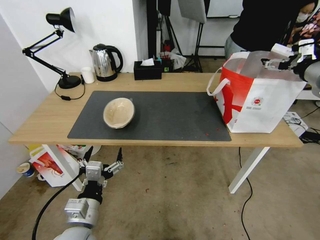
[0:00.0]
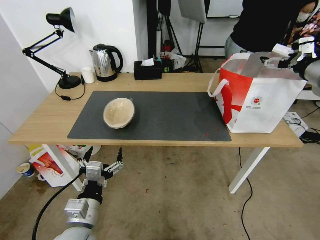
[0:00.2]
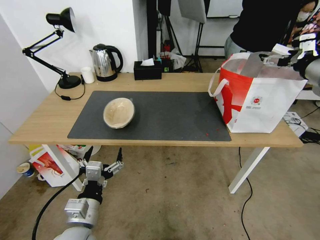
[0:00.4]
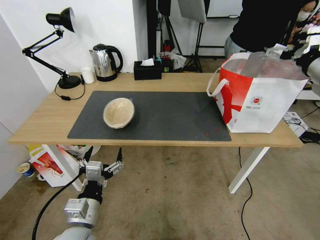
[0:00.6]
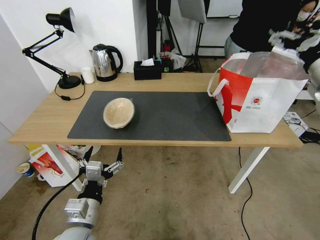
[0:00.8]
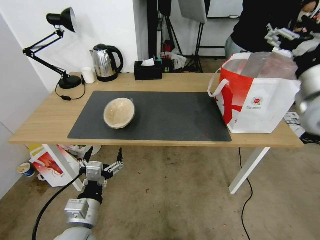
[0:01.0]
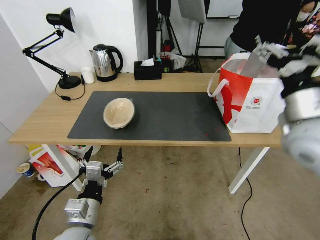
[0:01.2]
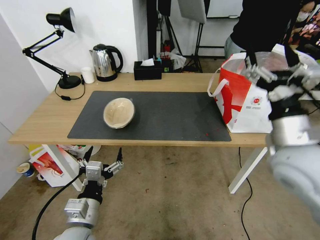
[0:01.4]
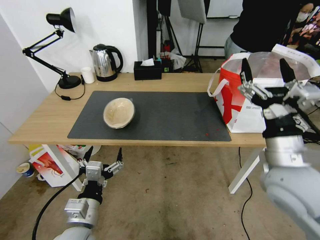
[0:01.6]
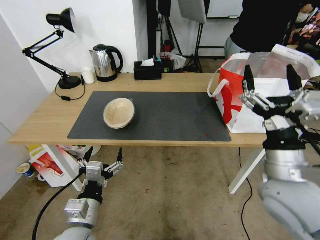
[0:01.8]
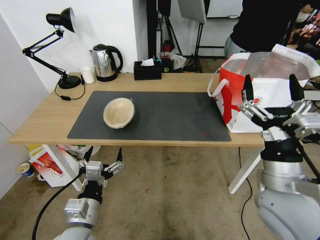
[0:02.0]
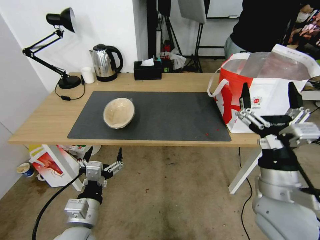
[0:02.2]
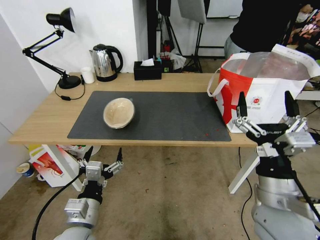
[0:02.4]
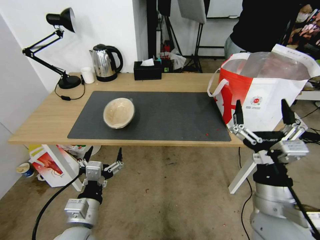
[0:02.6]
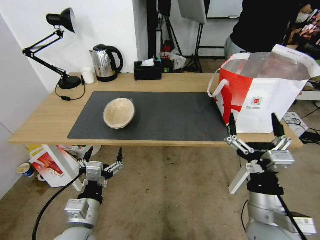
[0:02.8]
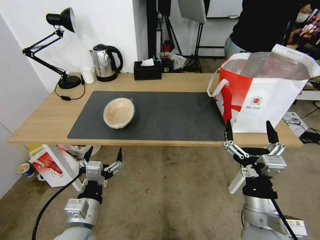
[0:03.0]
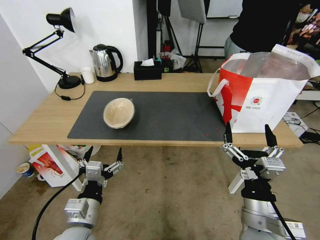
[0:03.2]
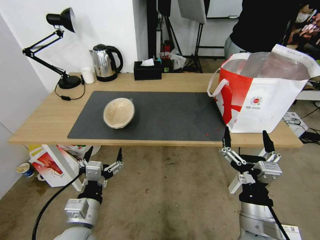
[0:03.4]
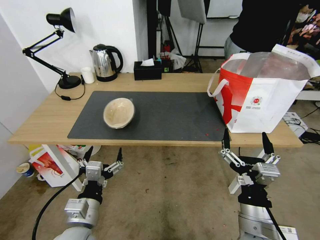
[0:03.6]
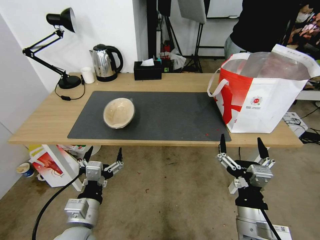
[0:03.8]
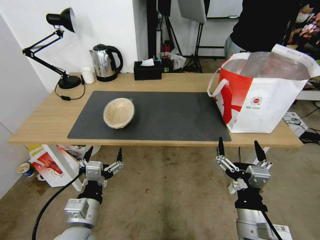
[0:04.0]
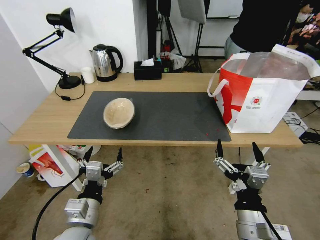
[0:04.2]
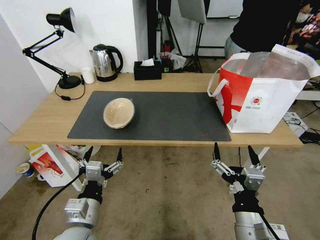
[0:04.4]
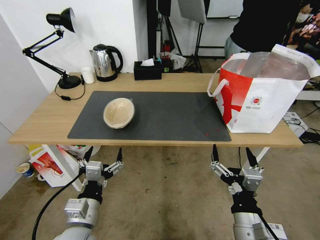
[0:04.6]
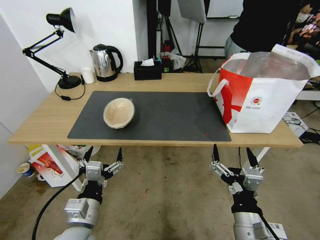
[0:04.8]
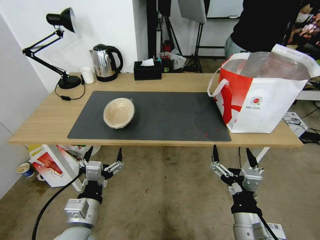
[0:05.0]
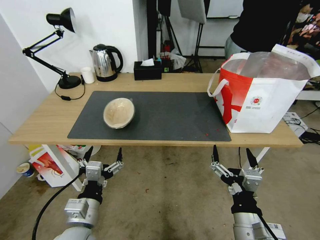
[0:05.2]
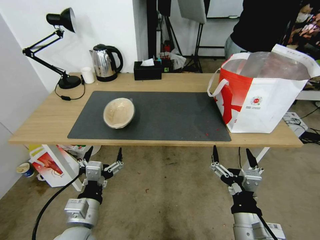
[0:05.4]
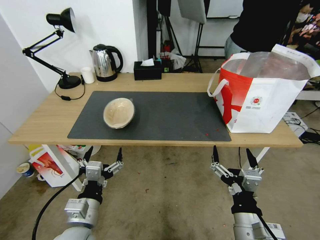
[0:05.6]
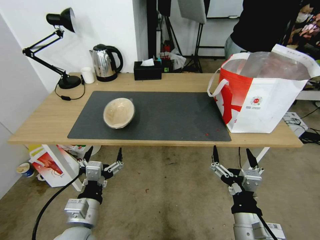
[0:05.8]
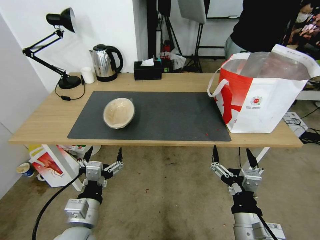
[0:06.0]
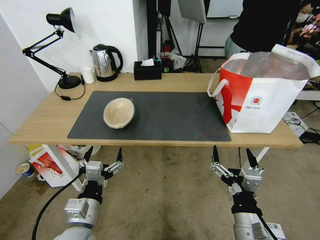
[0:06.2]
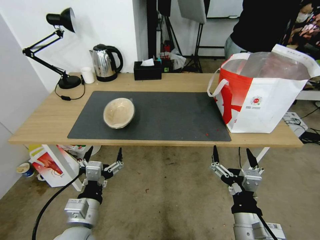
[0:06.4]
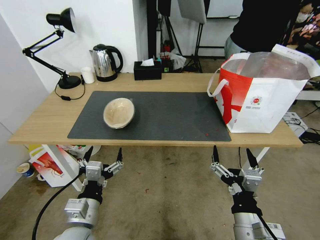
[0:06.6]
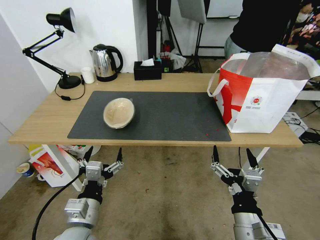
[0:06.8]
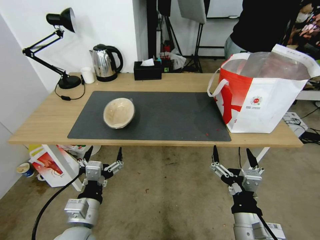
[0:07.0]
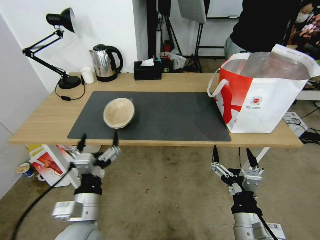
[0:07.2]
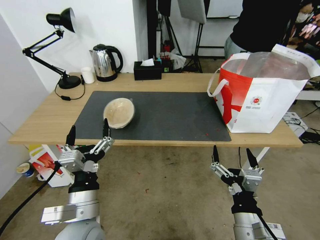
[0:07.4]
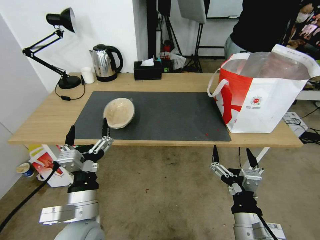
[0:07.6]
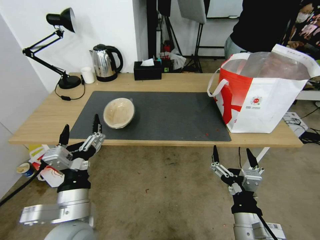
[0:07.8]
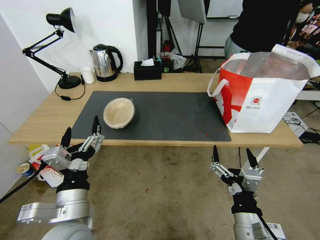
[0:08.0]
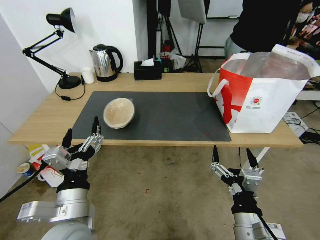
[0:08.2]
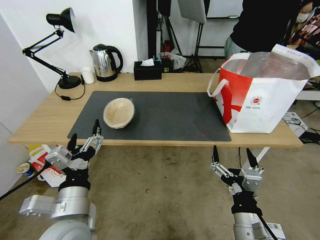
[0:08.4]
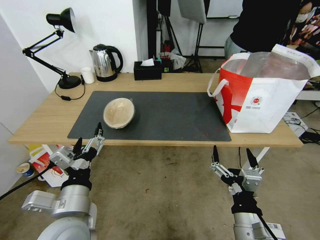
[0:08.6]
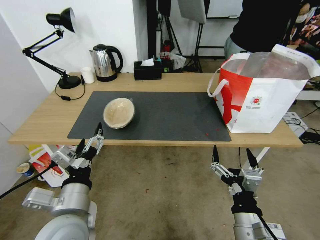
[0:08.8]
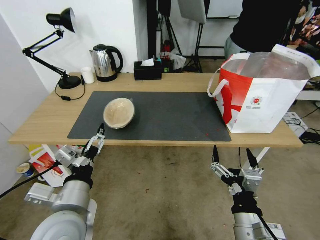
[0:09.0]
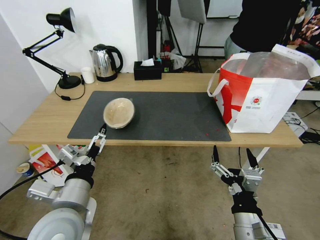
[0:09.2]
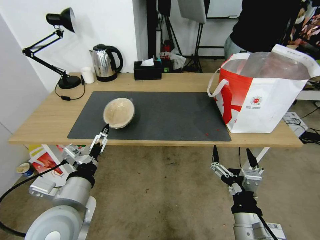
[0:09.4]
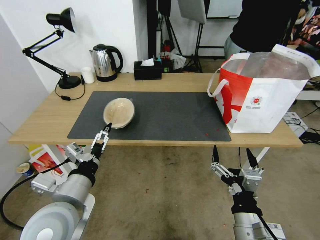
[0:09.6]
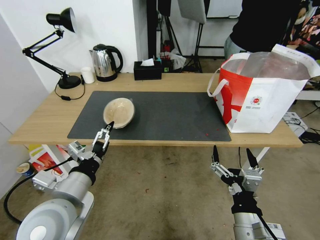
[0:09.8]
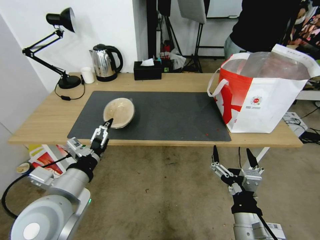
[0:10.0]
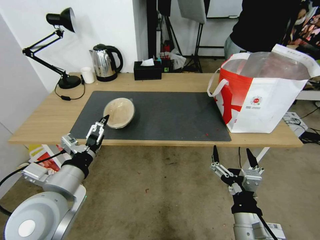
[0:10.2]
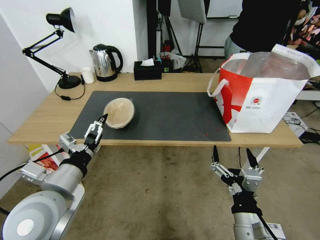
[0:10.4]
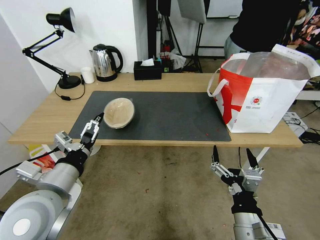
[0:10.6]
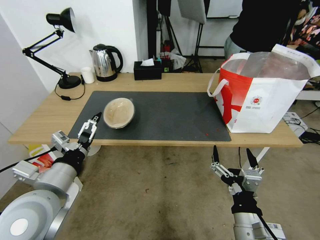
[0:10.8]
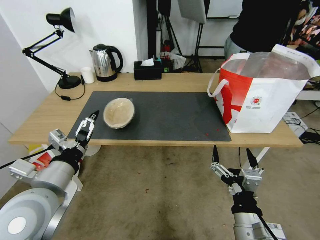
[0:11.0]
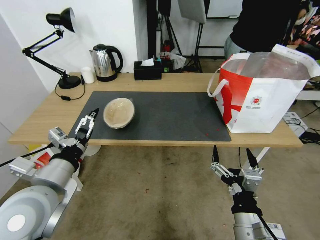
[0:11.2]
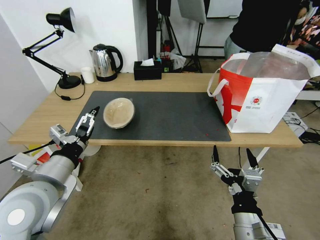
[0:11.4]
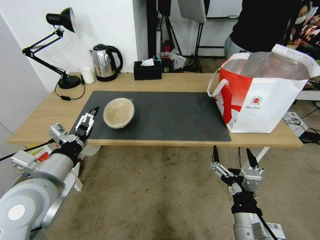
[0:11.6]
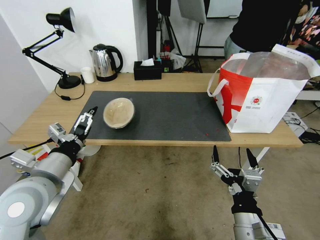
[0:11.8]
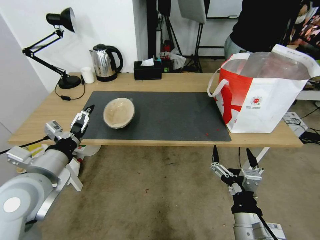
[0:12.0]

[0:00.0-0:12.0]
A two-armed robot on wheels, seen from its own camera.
Task of the whole recording: Pick up the trash from the table and place it into the takeout bag.
0:00.0 to 0:01.6: The right gripper shifts approximately 30 cm backward, to the left and downward.
0:01.6 to 0:03.0: The right gripper heads downward and backward, covering roughly 15 cm.
0:03.0 to 0:04.4: The grippers stay close to where they were, moving slightly.
0:04.4 to 0:06.0: Neither gripper changes place.
0:06.0 to 0:07.6: The left gripper changes place by some 5 cm.
0:09.0 to 0:10.4: The left gripper changes place by some 5 cm.
0:10.4 to 0:12.0: The left gripper moves approximately 5 cm.

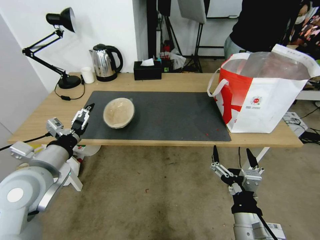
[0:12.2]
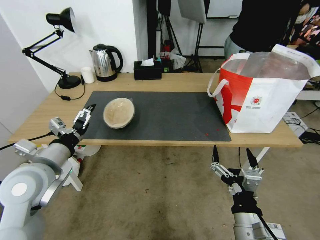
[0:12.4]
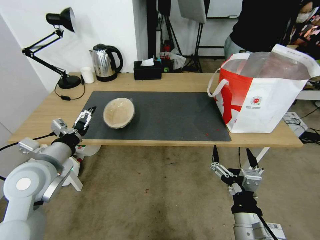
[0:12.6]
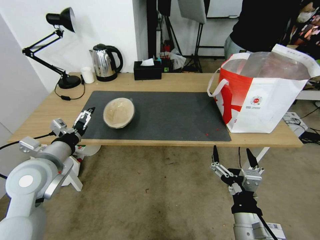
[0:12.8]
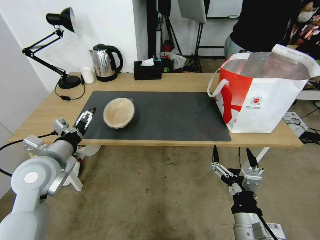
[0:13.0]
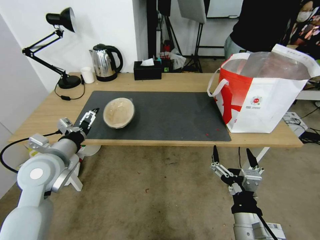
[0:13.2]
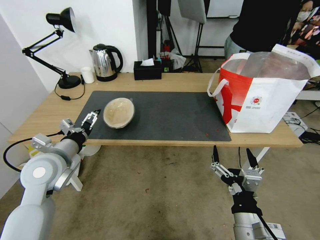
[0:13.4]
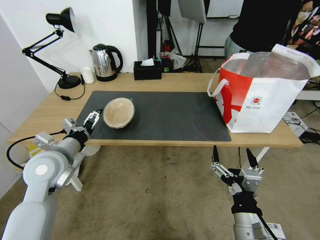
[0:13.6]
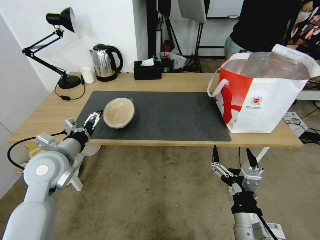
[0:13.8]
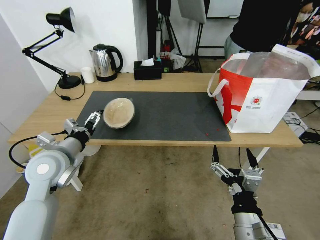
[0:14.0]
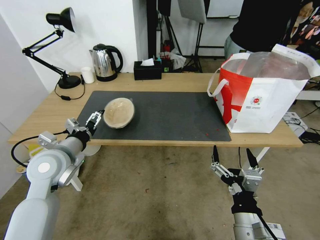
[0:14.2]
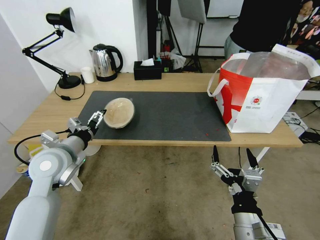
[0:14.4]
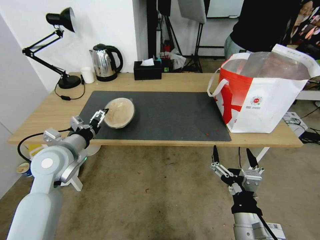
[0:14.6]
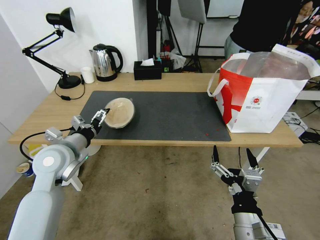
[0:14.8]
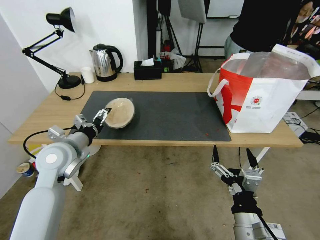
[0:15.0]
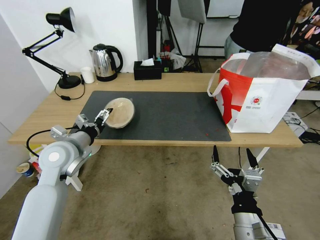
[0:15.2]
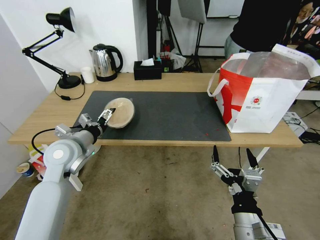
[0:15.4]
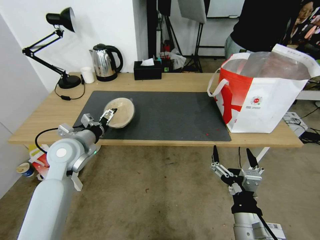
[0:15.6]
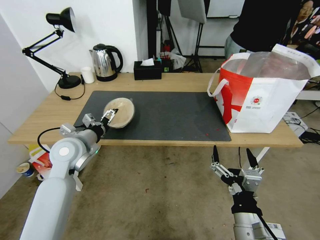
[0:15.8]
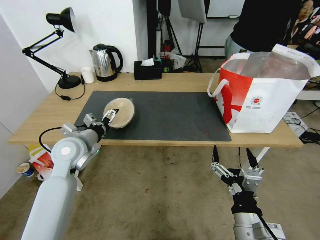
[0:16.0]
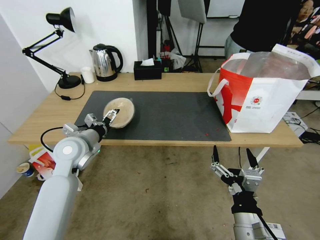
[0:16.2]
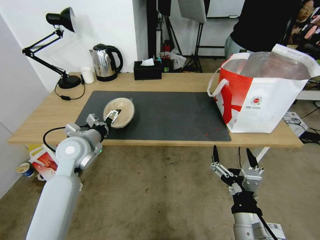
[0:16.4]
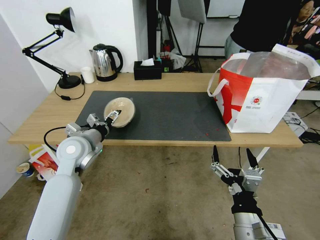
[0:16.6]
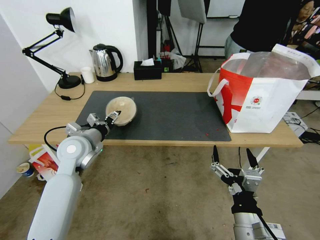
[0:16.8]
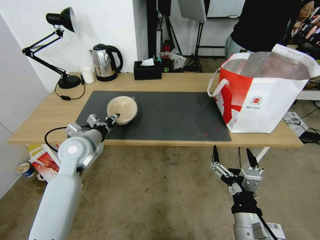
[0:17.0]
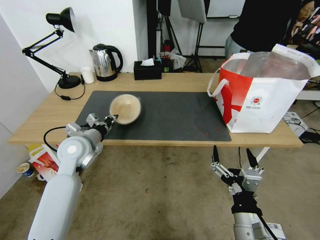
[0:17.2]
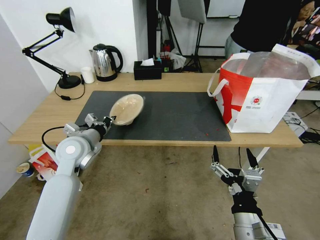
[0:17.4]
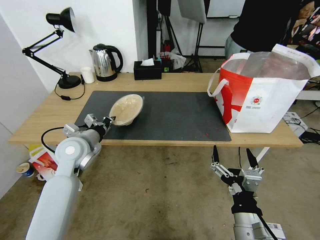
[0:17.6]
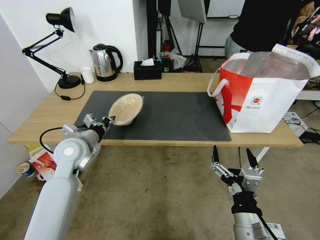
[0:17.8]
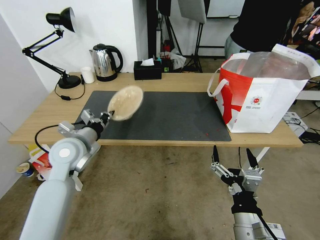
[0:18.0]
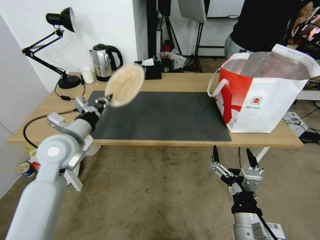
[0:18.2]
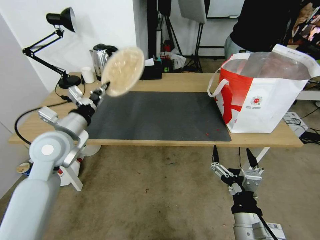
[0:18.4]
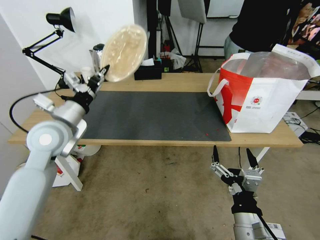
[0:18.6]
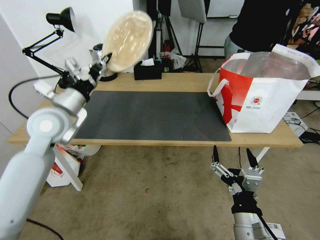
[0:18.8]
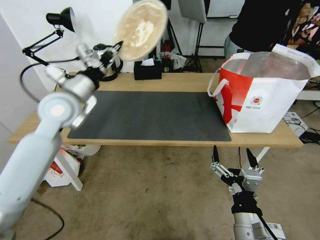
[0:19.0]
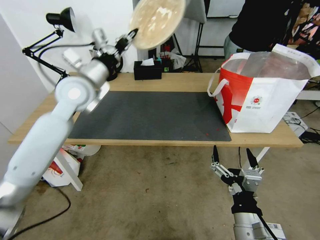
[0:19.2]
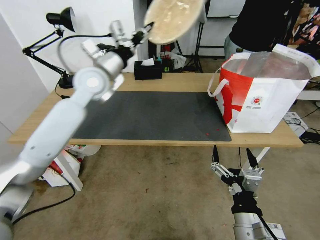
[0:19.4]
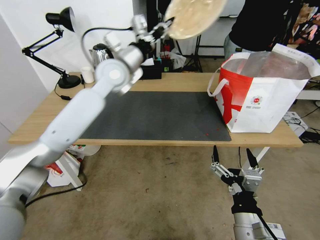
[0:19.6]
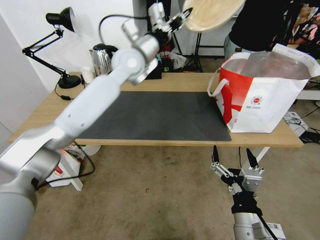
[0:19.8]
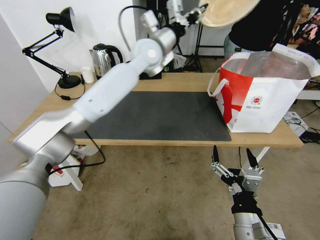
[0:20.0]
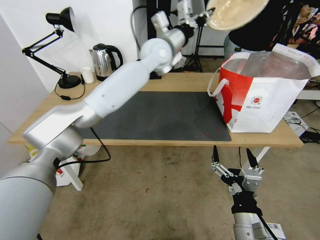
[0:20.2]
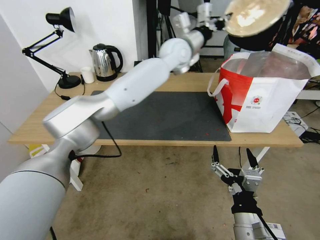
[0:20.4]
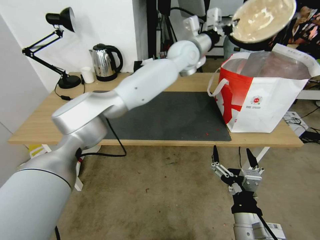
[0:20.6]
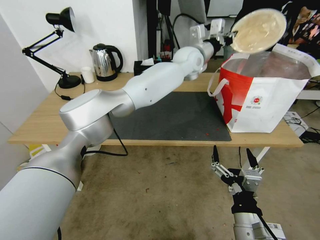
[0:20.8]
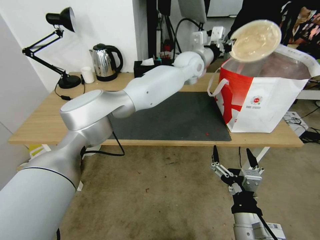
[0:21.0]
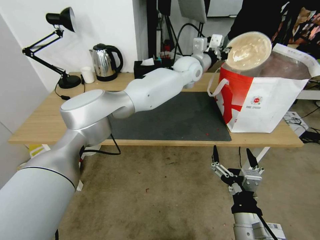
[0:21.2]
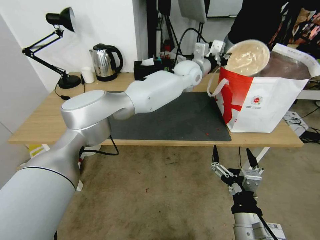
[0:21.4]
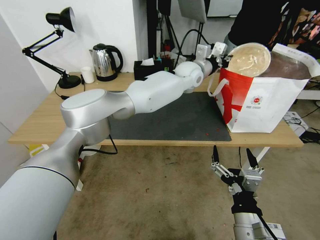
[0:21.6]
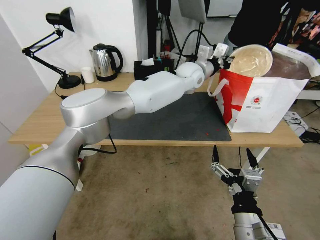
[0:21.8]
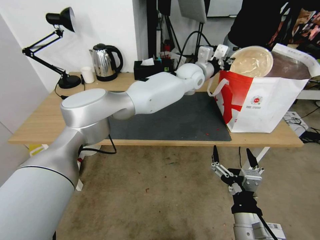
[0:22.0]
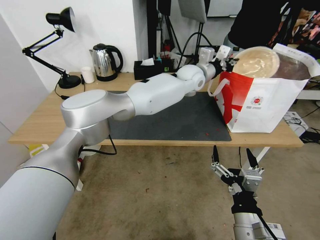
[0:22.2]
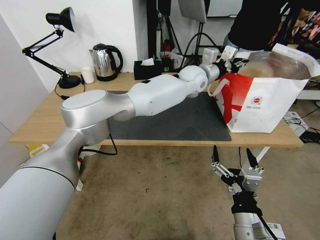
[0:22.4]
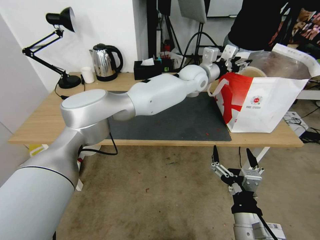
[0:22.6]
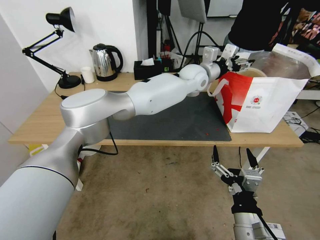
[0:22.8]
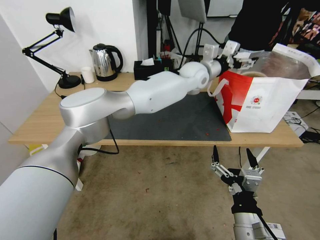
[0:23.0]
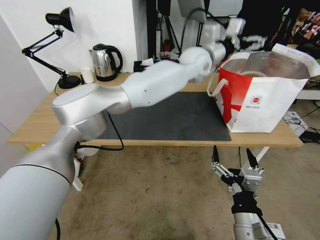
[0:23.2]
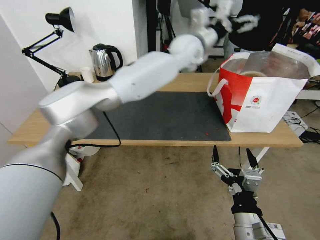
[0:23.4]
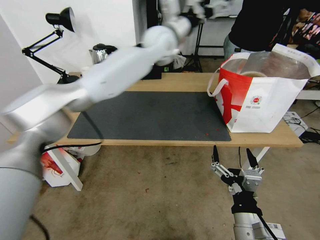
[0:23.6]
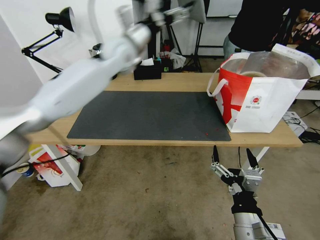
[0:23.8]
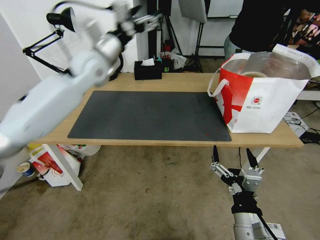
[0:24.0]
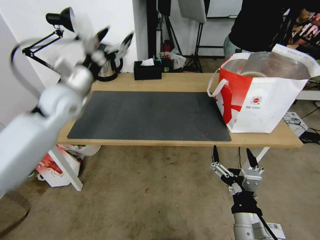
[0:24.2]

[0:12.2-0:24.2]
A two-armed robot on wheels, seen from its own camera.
Task of the whole recording: Pick up the trash from the table and place it into the takeout bag.
0:12.2 to 0:13.8: The left gripper is displaced forward by some 5 cm.
0:13.8 to 0:15.2: The grippers stay close to where they were, moving slightly.
0:15.2 to 0:16.6: The grippers stay close to where they were, moving slightly.
0:16.6 to 0:18.2: The left gripper heads upward, covering approximately 5 cm, and closes.
0:18.2 to 0:19.8: The left gripper shifts some 30 cm forward, to the right and upward.
0:19.8 to 0:21.2: The left gripper goes approximately 20 cm to the right.
0:21.2 to 0:22.6: The left gripper opens its fingers.
0:22.6 to 0:24.2: The left gripper heads to the left, covering roughly 40 cm, and opens.
